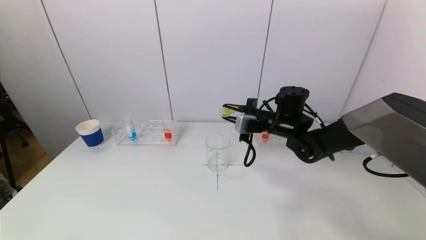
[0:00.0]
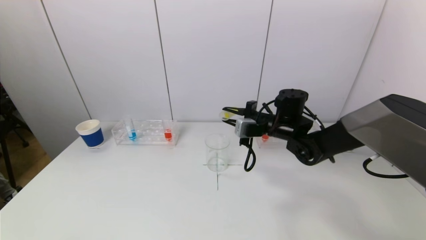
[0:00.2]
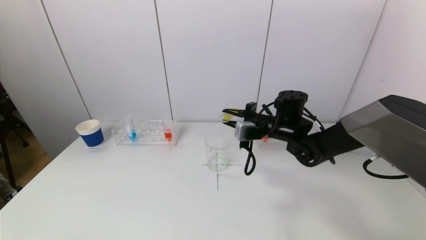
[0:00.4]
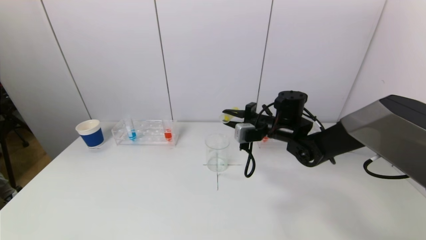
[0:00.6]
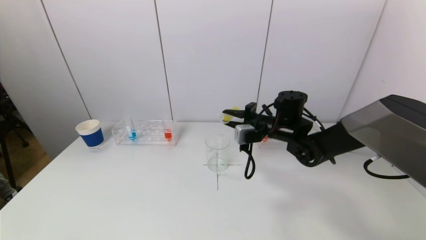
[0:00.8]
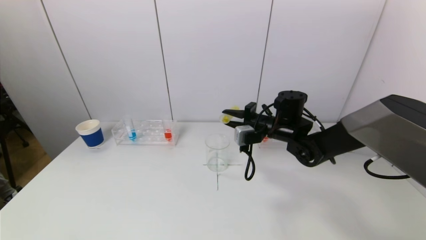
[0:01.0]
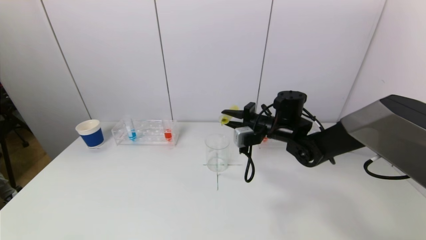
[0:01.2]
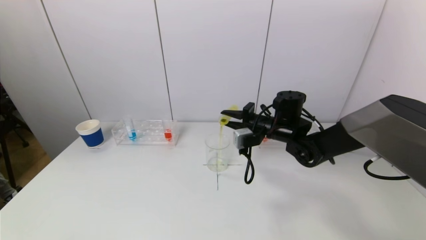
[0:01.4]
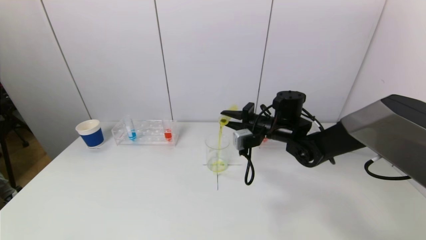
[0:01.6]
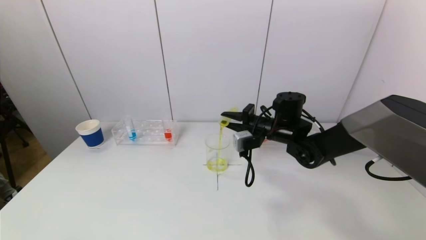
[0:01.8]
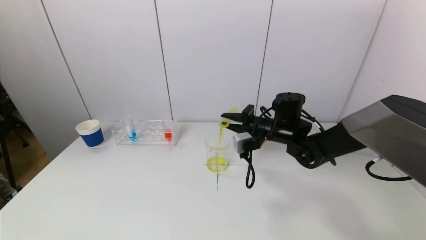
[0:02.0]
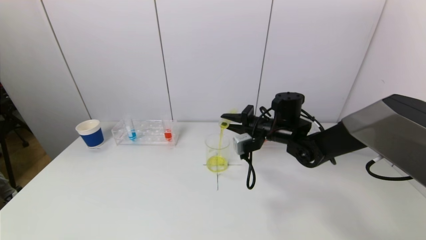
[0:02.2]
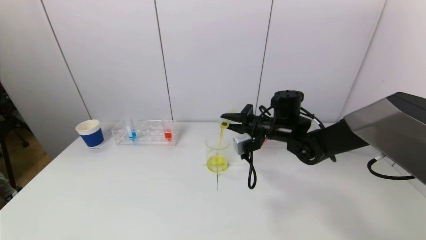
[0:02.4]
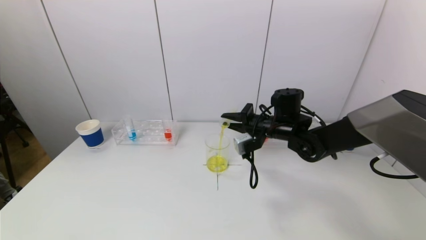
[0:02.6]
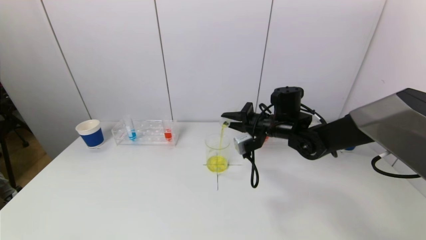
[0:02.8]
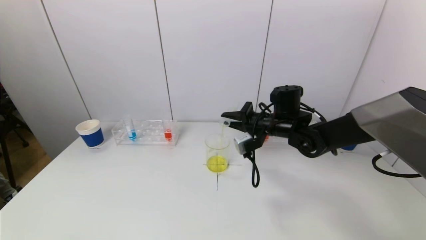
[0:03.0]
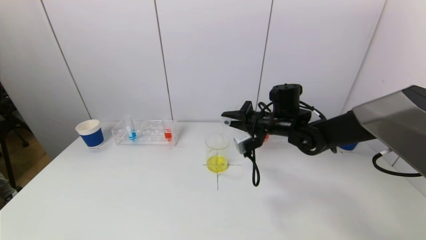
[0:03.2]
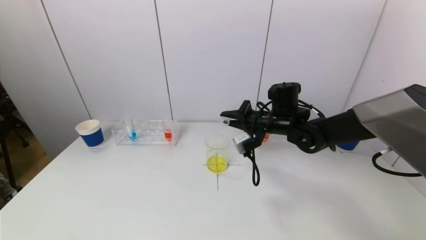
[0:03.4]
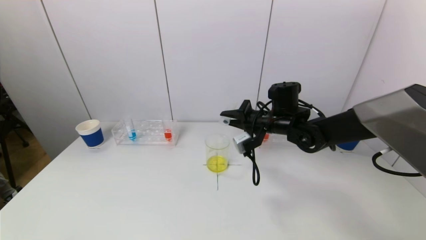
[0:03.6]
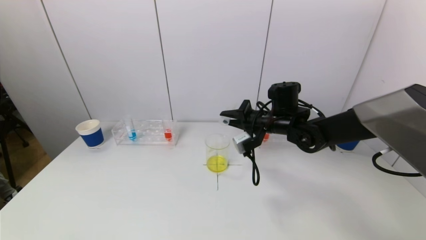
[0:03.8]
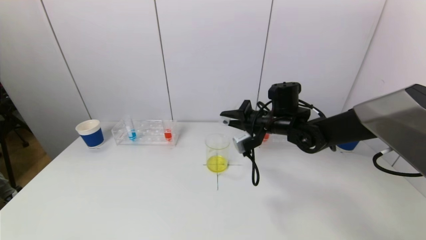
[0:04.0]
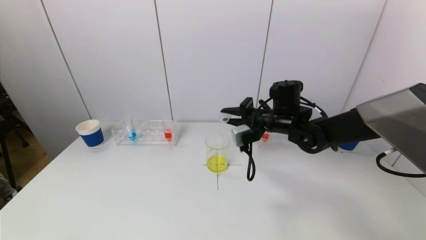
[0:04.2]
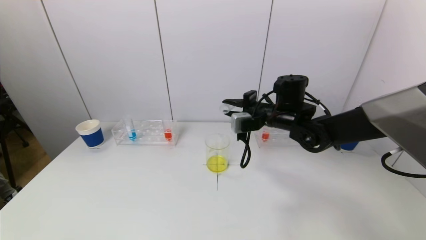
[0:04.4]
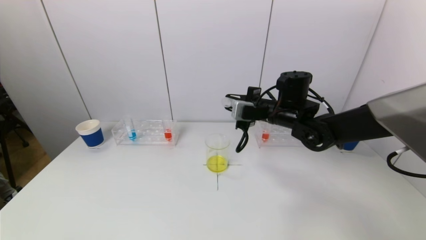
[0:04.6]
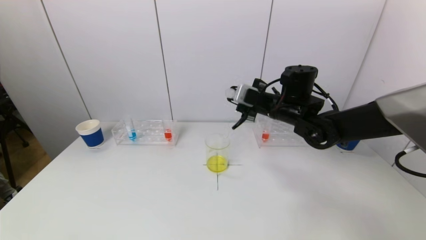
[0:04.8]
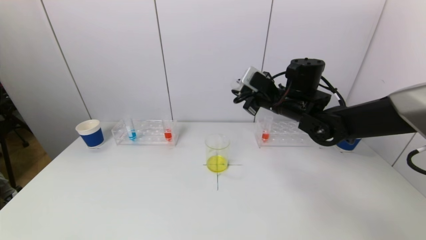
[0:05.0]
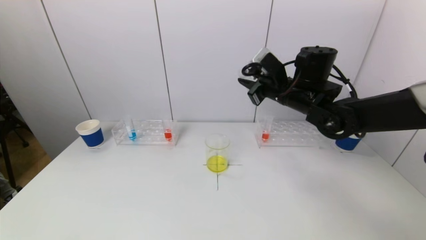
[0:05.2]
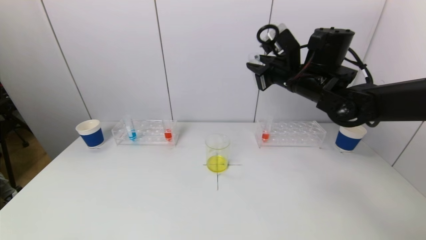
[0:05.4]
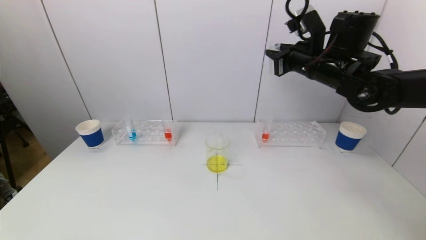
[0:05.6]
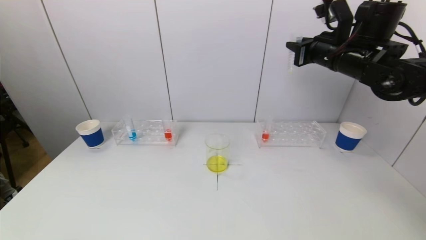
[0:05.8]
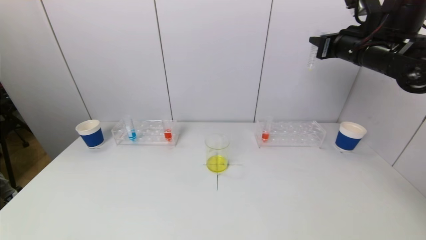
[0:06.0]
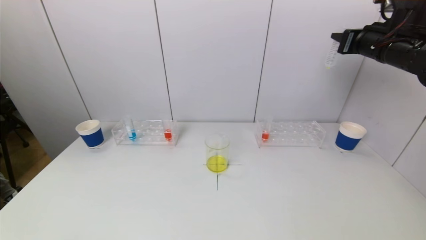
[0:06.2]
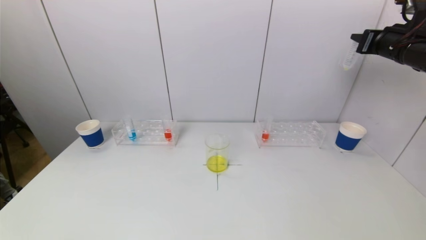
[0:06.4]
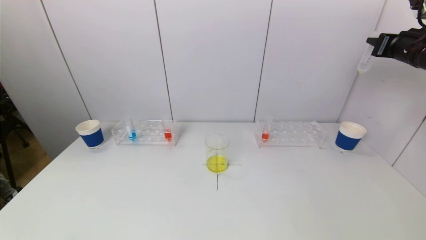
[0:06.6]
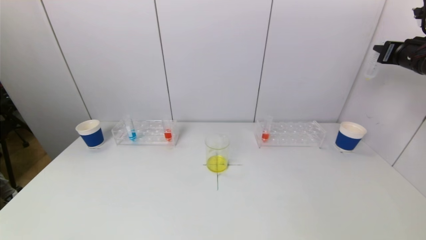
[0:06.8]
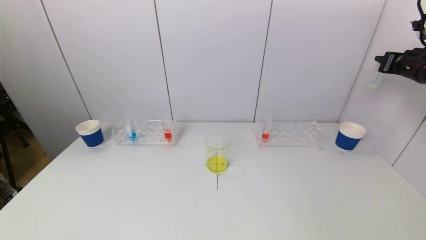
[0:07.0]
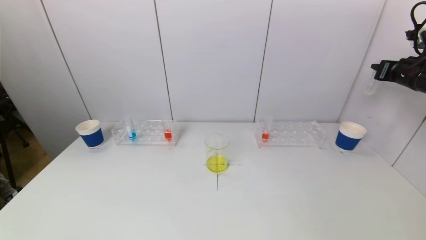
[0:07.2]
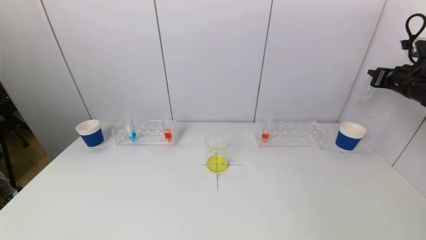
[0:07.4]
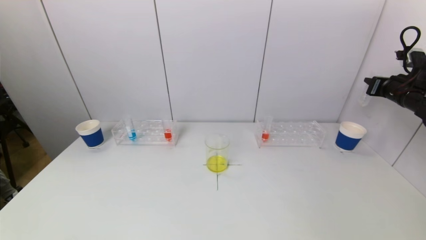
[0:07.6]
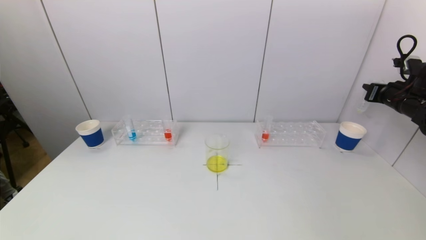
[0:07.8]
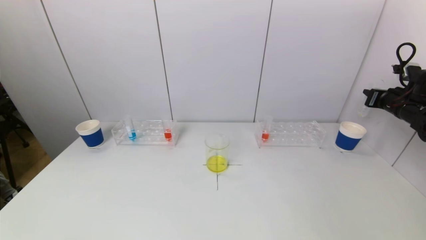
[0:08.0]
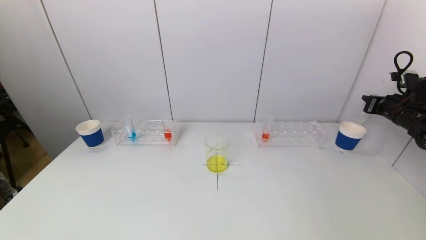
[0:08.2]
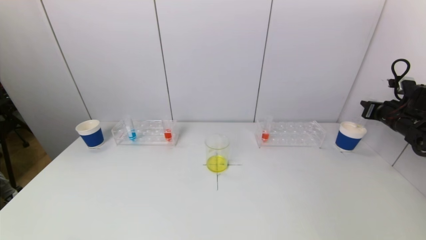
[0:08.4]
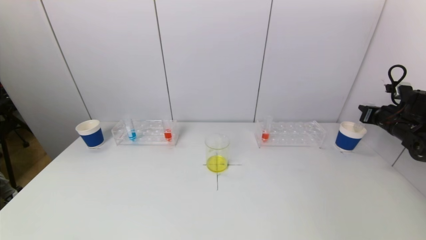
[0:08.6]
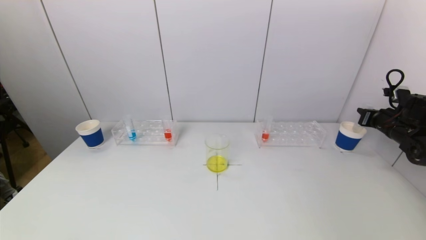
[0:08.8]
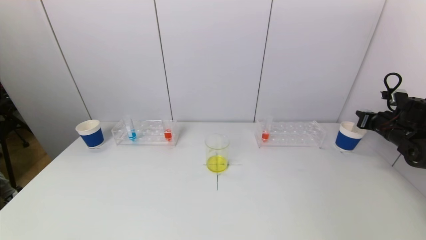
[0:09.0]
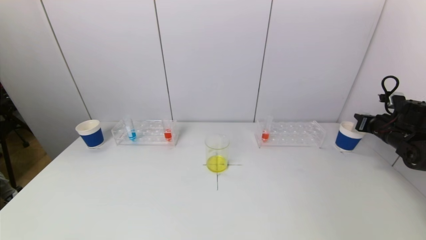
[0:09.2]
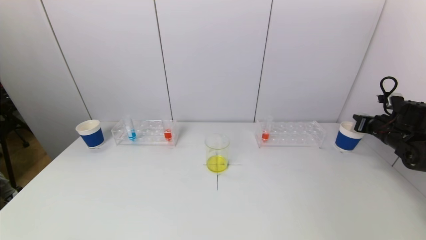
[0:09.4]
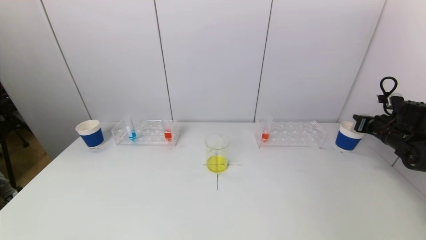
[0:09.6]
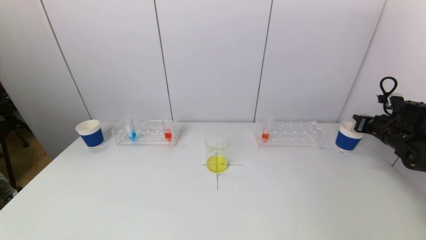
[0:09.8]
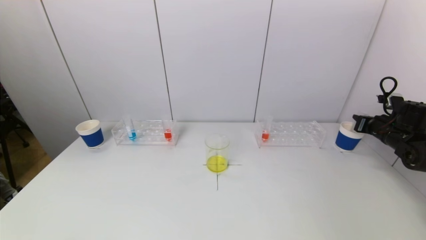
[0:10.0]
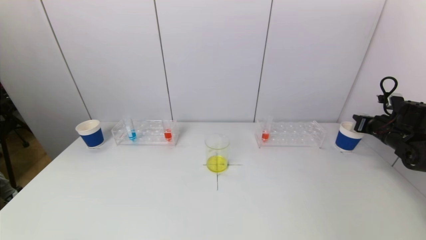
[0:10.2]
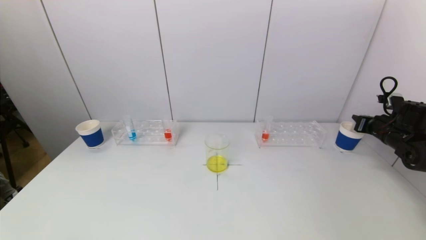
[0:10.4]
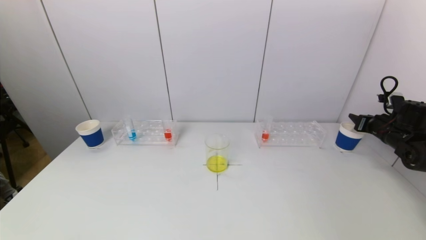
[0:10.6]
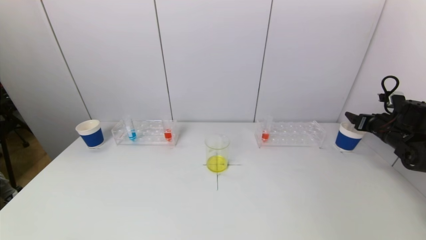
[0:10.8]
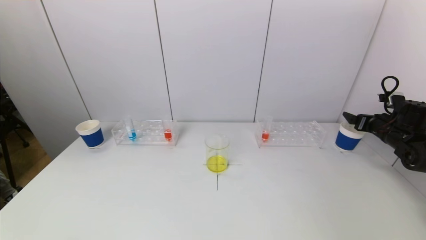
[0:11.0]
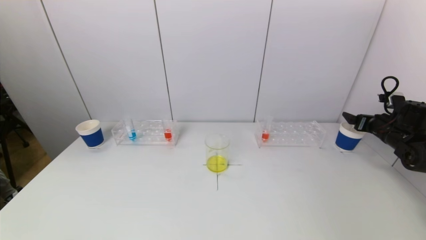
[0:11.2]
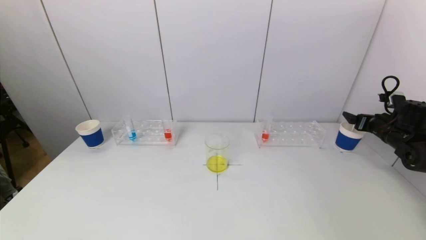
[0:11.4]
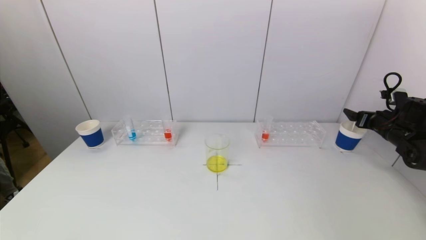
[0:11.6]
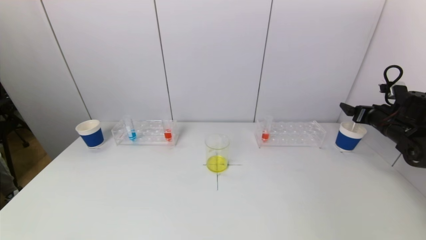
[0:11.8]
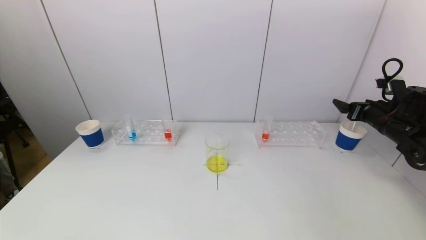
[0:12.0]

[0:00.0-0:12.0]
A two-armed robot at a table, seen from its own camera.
Task of the whole recording: pick up a test tube with pigment on left test tube rack and a test tube with pigment on right test tube rack by grippers and pour them into the beaker.
Step, 0:00.0 to 0:03.6: Pour the yellow reagent into the graduated cylinder with the right gripper.
Step, 0:03.8 to 0:11.2: Place the test tube into the paper cup with the right gripper.
0:00.0 to 0:01.6: There are only small adjustments of the grippers.
0:01.6 to 0:04.4: The grippers stay close to where they were, moving slightly.
0:04.4 to 0:06.0: The right gripper is displaced upward and to the right by roughly 20 cm.
0:06.0 to 0:07.6: The right gripper travels to the right and downward by some 20 cm.
0:07.6 to 0:09.0: The right gripper heads downward, covering some 10 cm.
0:09.0 to 0:10.4: The two grippers keep their place.
0:10.4 to 0:12.0: The right gripper heads to the left and upward, covering approximately 5 cm, and opens its fingers.

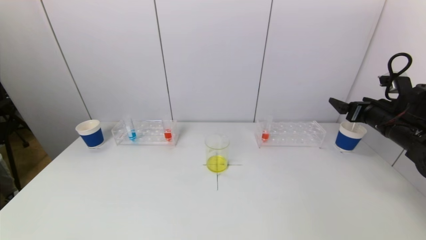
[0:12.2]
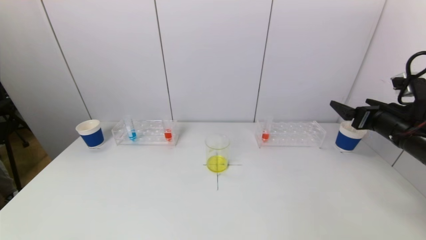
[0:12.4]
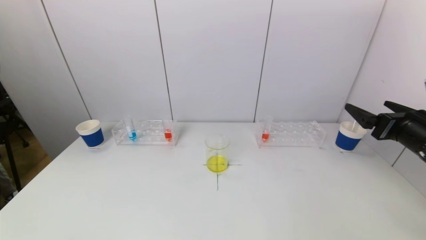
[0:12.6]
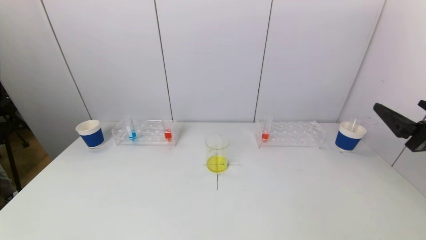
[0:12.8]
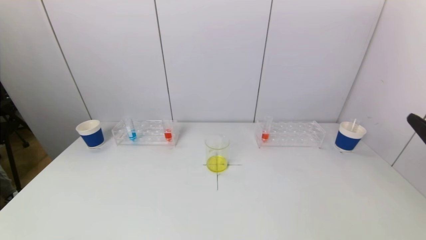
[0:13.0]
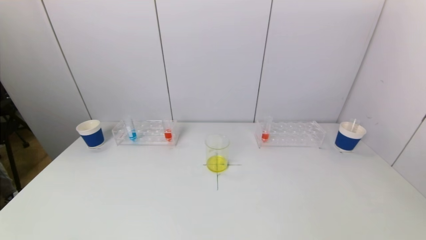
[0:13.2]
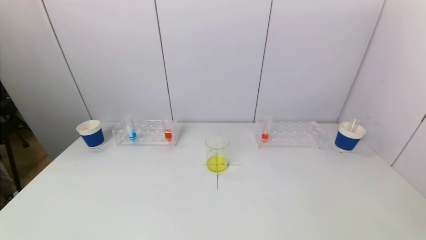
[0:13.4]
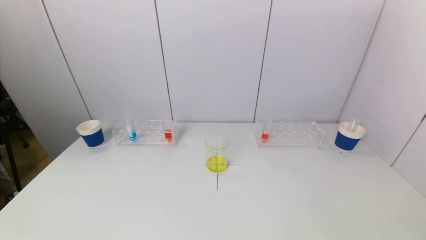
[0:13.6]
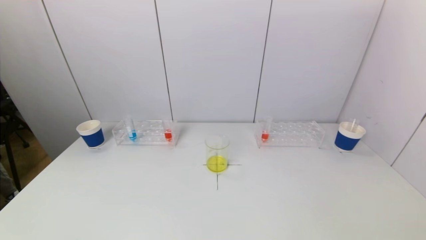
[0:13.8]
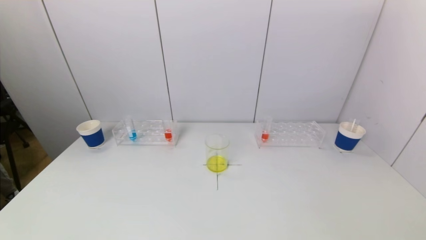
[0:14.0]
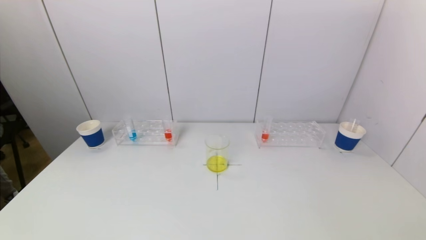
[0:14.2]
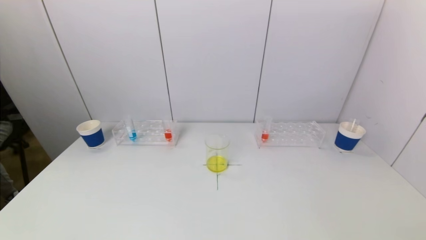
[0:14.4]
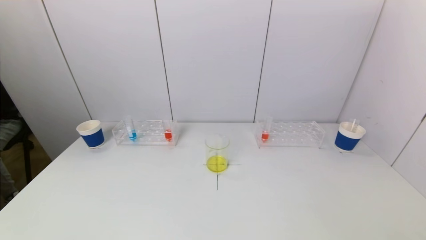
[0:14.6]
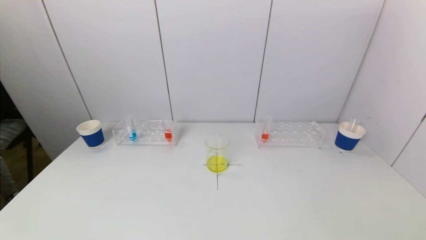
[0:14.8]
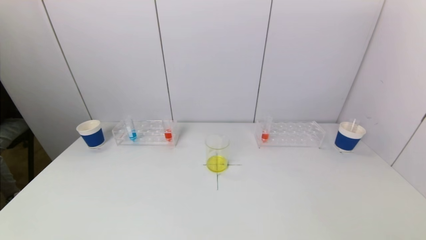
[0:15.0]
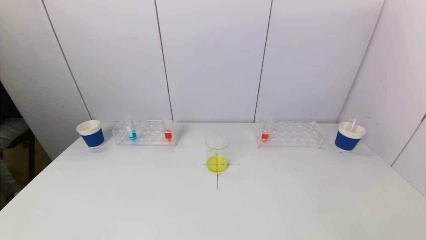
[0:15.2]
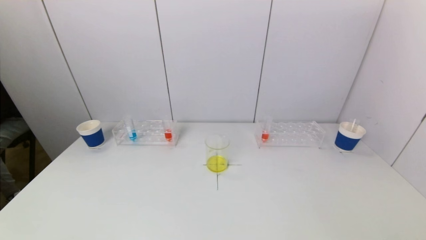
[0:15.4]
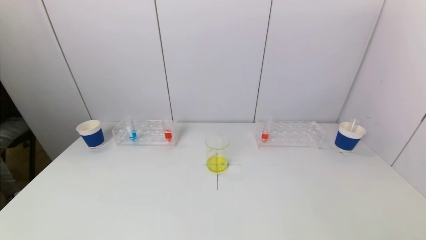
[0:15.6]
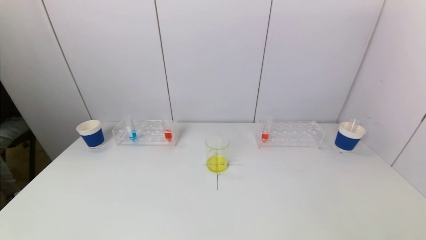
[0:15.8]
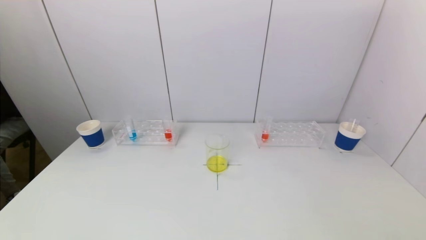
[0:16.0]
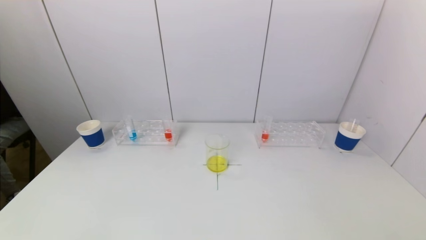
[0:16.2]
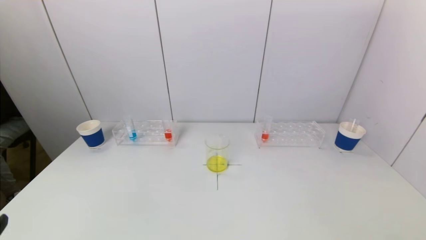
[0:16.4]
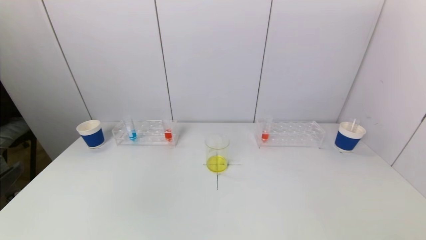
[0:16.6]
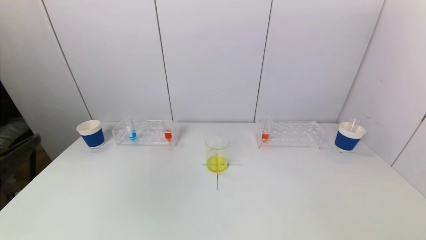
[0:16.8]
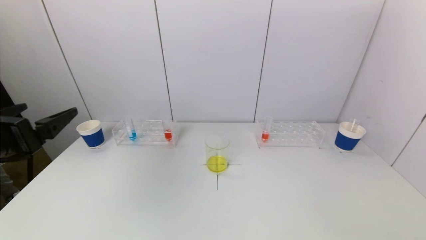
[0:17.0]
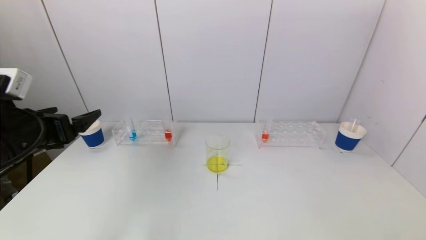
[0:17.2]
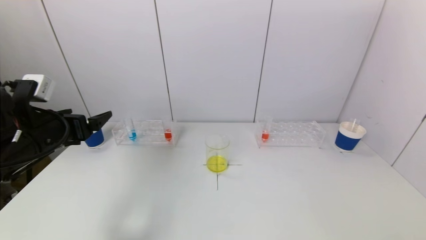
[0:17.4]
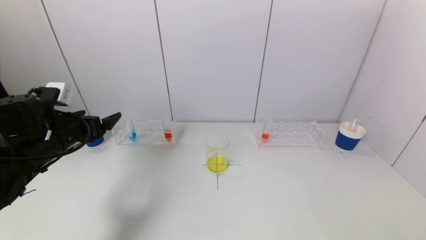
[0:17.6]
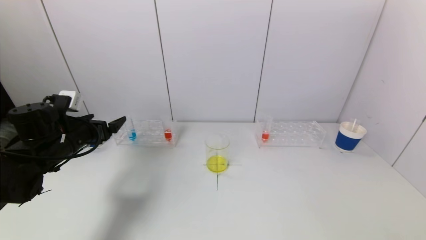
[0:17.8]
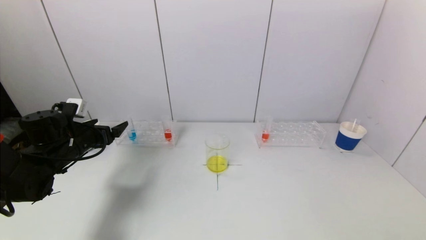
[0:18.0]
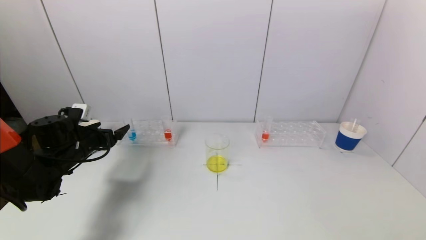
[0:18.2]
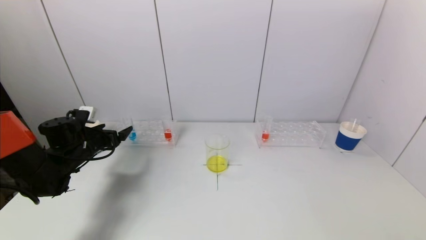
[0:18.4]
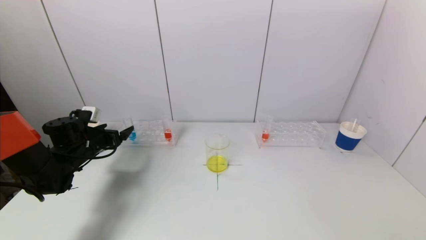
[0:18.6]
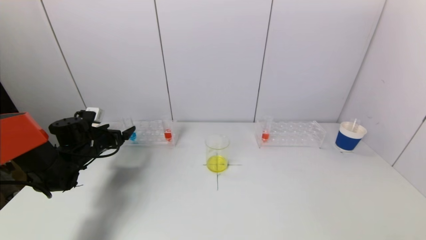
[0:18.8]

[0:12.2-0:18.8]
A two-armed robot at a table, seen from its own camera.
Task of the whole recording: pick up a test tube with pigment on left test tube rack and a test tube with pigment on right test tube rack by grippers and pour them into the beaker.
0:12.2 to 0:13.8: The right gripper shifts approximately 35 cm backward.
0:15.4 to 0:17.2: The left gripper is displaced forward and upward by roughly 25 cm.
0:17.2 to 0:18.8: The left gripper is displaced forward and downward by roughly 25 cm.
